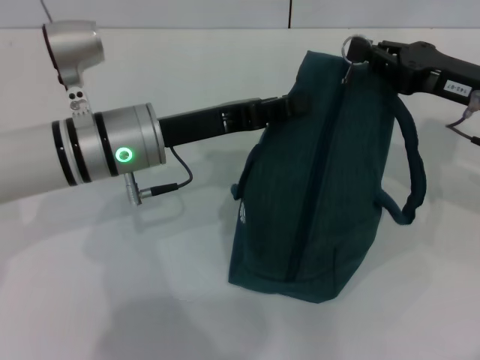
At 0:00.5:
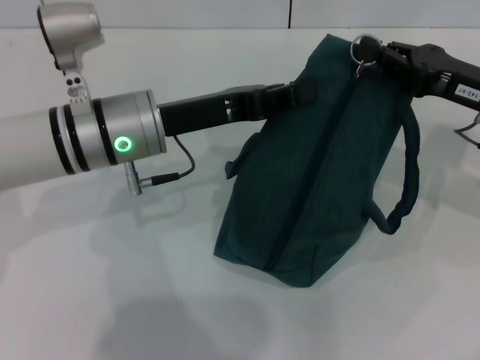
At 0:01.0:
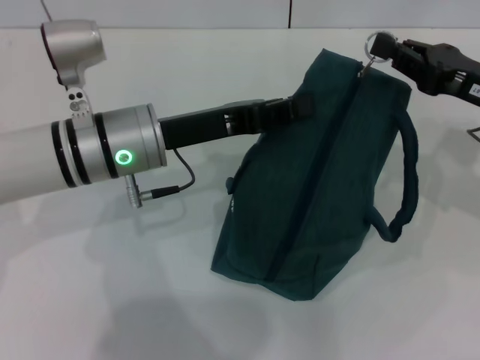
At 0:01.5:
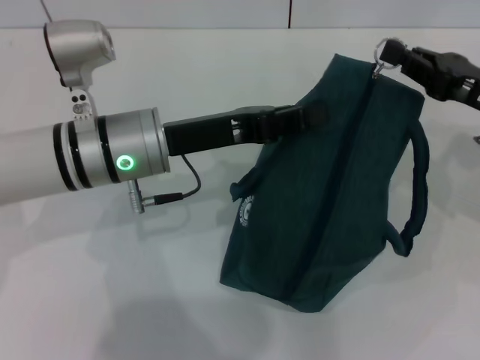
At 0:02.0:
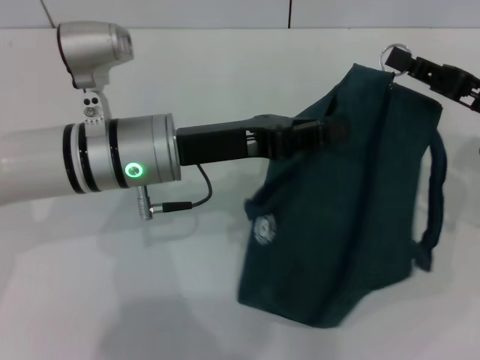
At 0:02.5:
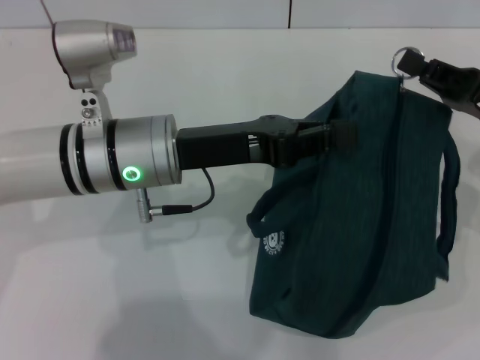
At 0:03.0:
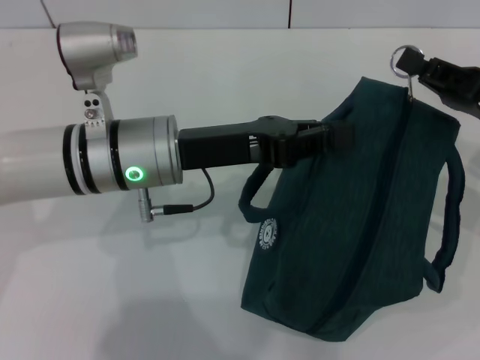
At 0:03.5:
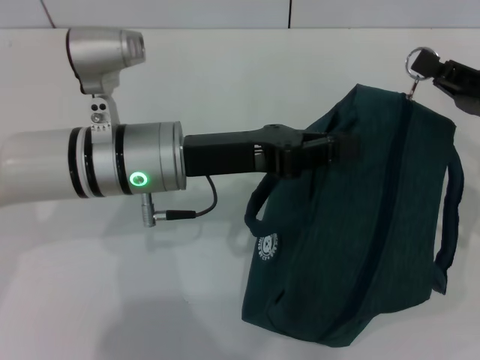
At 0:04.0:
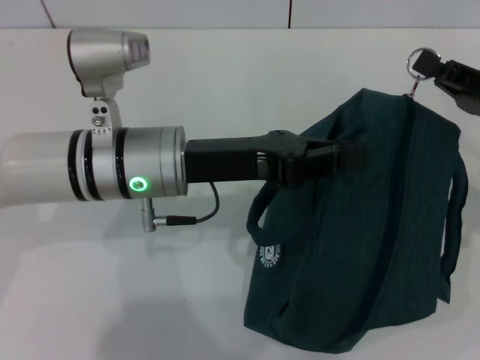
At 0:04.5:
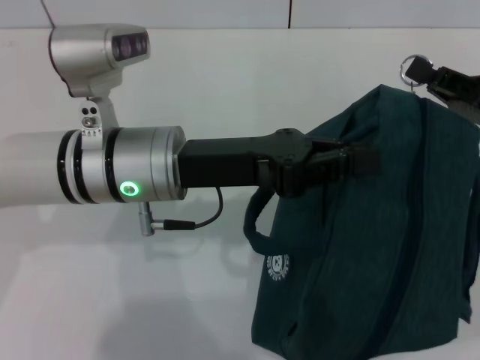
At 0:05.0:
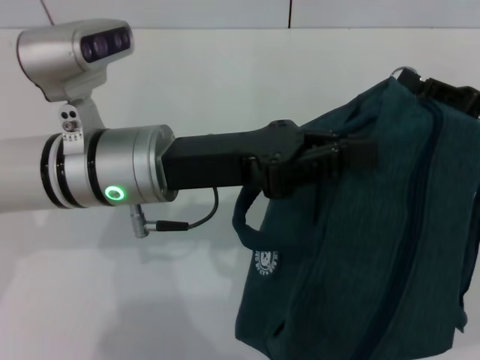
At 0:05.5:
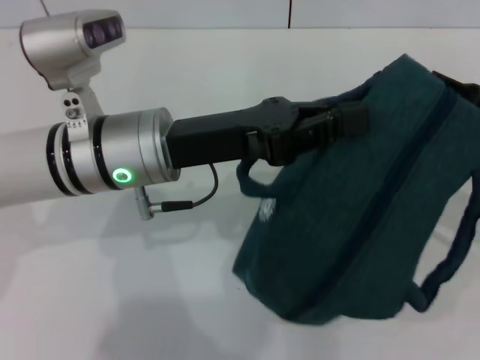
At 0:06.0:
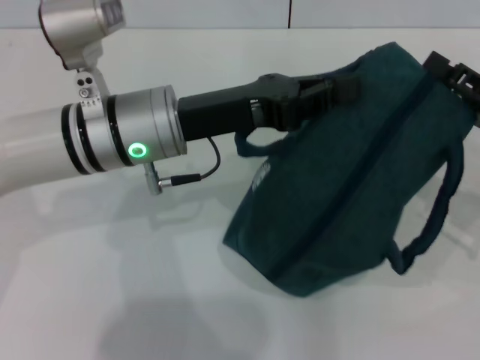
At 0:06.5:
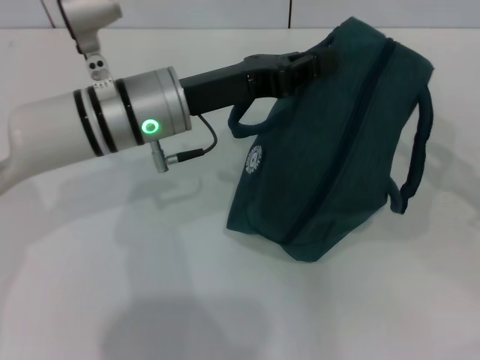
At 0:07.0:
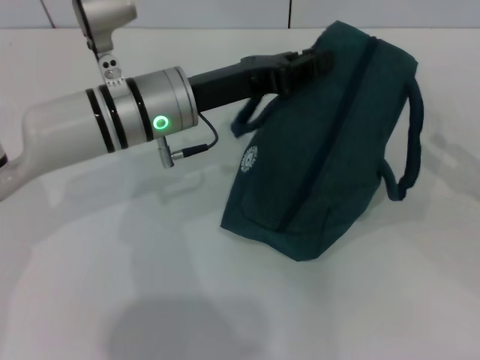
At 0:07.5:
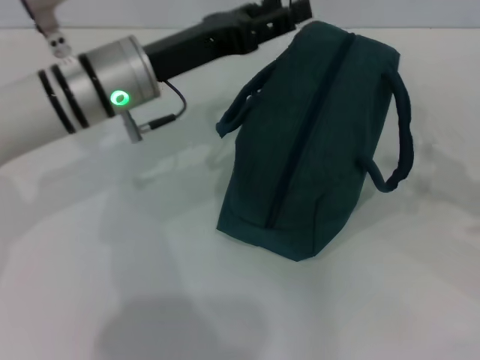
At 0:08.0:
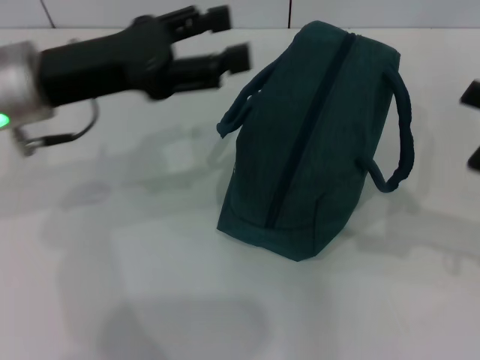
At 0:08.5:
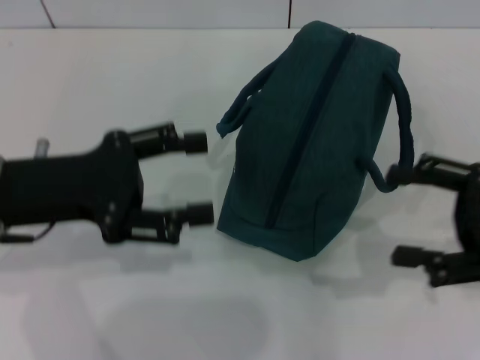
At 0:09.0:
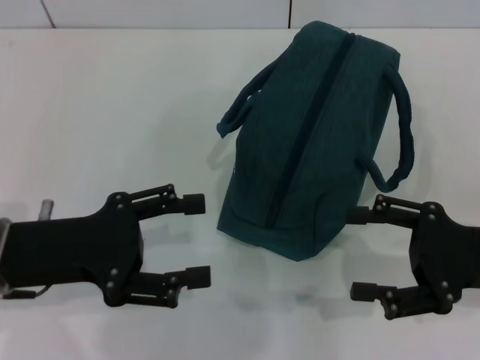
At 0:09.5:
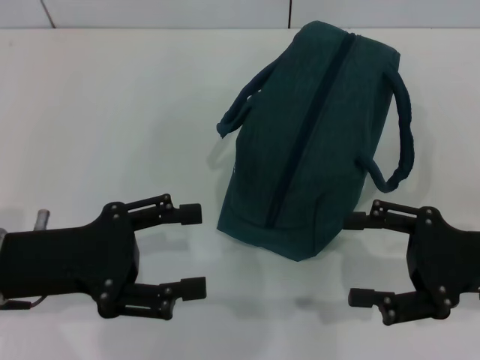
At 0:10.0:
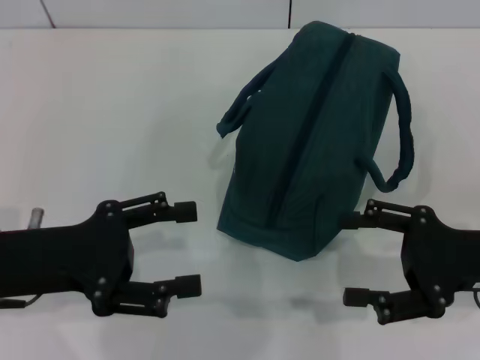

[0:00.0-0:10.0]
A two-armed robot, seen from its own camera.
Step, 0:00.0 to 0:06.0: Zip up the lunch bag with your right hand.
Step, 0:06.5 to 0:07.5: Hold the lunch bag with your left hand.
0:04.0 to 0:06.0: The right gripper opens its fingers.
0:06.0 to 0:08.0: The right gripper moves roughly 5 cm, and opens its fingers, while the left gripper goes approximately 10 cm to the left, and opens up.
0:08.0 to 0:10.0: The right gripper shifts some 10 cm to the left and downward. The left gripper moves backward and downward, about 10 cm.
